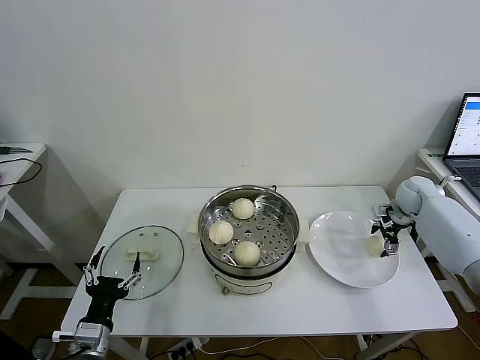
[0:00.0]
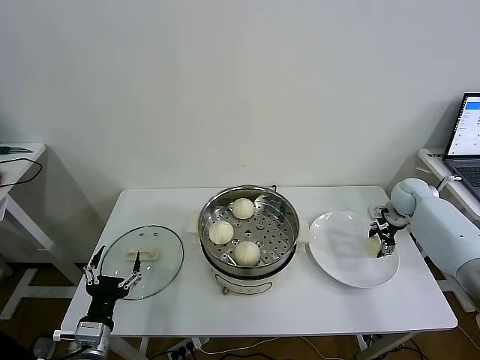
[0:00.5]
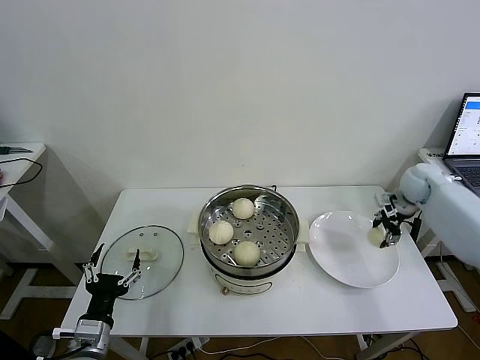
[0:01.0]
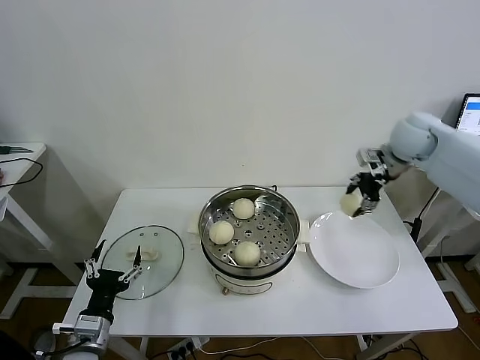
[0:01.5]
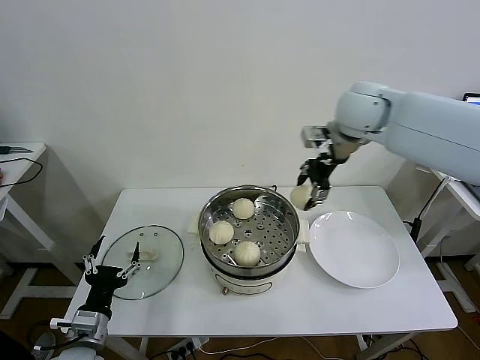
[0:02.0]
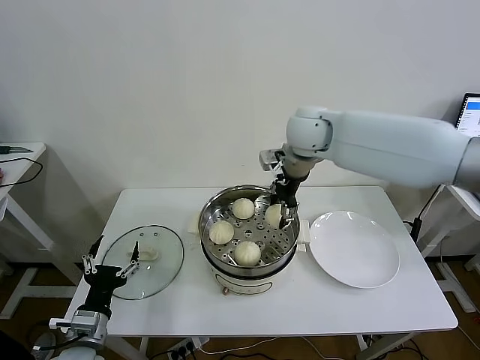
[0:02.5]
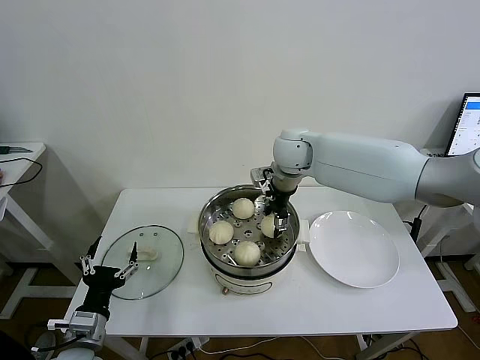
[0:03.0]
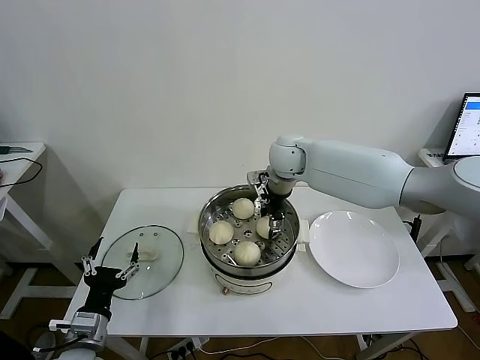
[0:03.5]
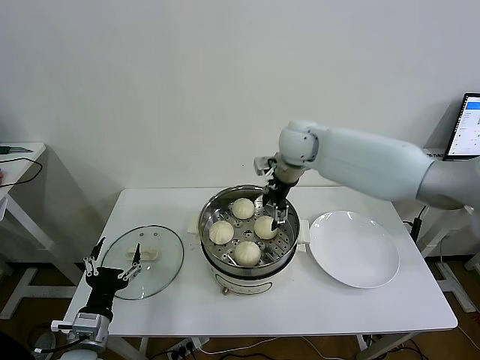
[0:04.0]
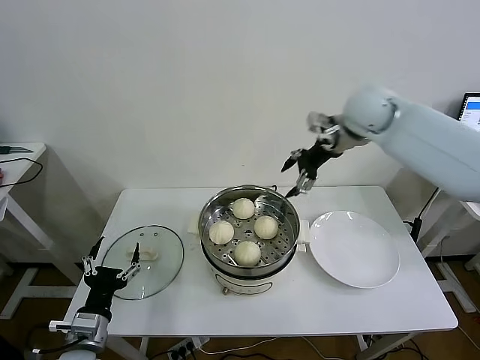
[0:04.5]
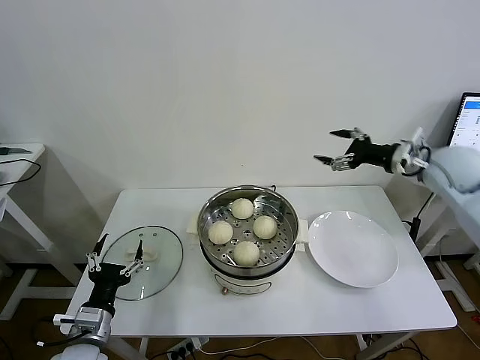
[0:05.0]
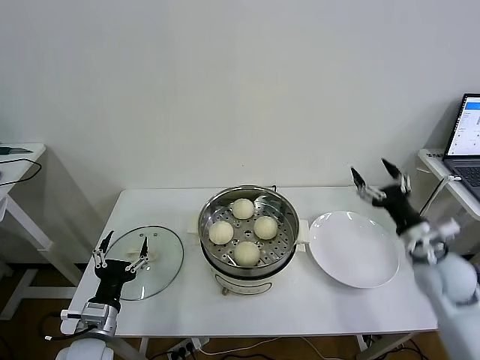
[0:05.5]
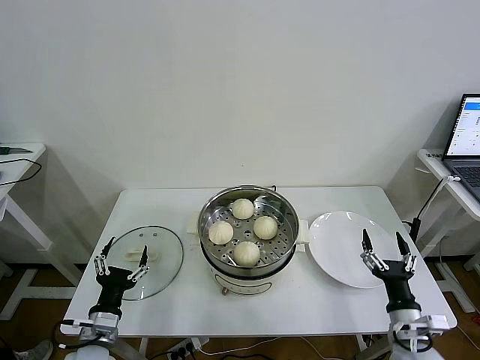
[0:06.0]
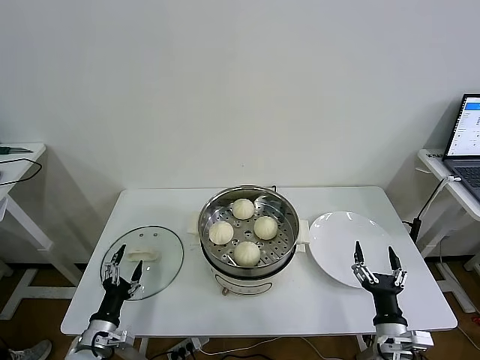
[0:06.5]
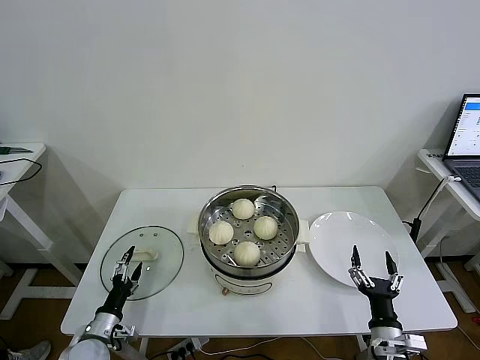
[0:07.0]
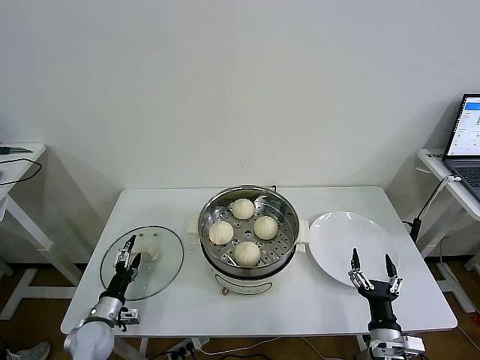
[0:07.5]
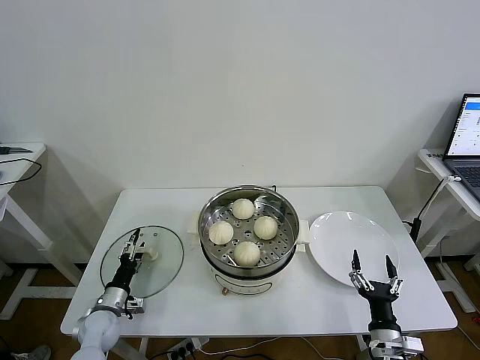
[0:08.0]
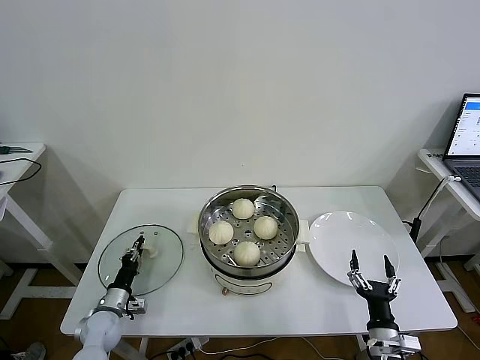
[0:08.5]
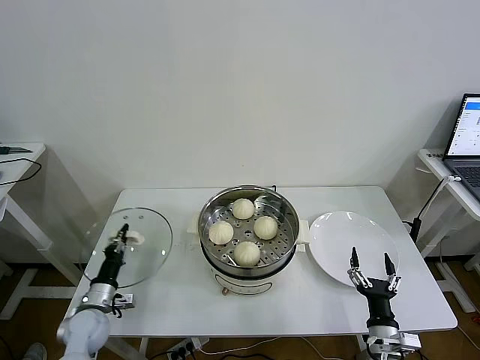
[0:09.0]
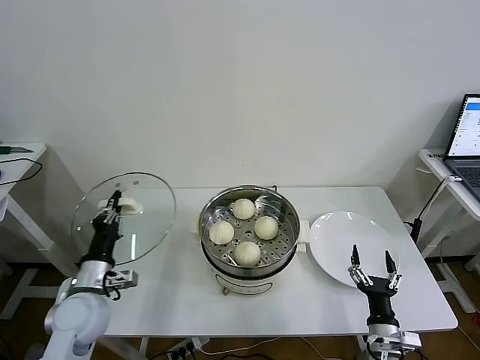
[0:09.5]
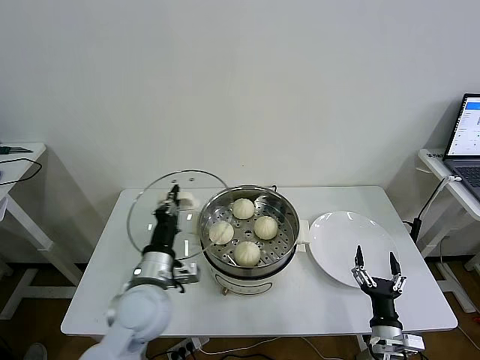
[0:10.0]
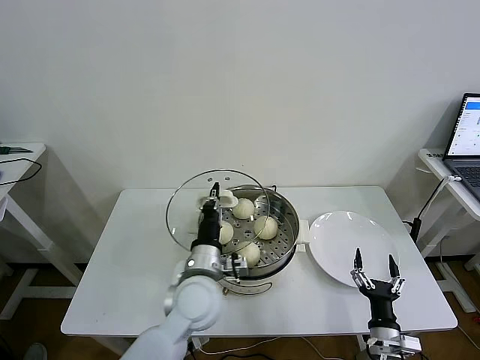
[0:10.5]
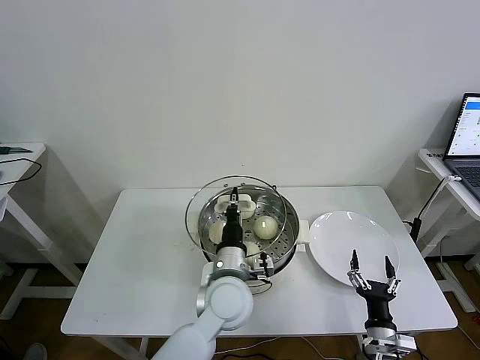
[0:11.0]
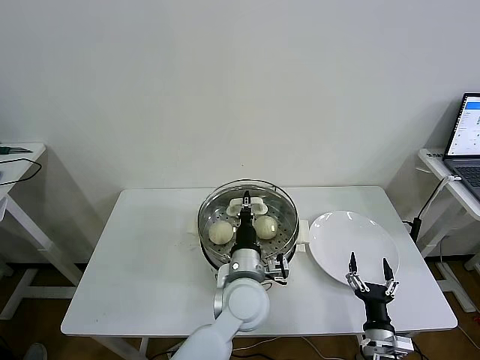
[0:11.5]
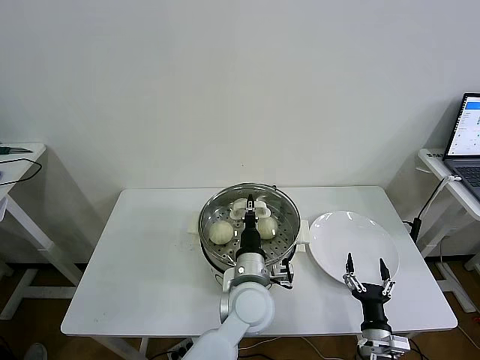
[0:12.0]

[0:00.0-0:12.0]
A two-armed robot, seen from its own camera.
Task of the whole recording: take steamed baozi put them in steamer then cover it.
Step, 0:00.5 to 0:03.5: Place the baozi on the steamer with right gripper.
Step, 0:04.0 to 0:08.5: Grasp the pot lid with left gripper.
0:00.0 to 0:02.0: The right gripper is displaced upward and to the left by some 35 cm, and closes up.
0:02.0 to 0:04.0: The right gripper travels downward and to the left by roughly 15 cm, and opens its fingers.
0:04.0 to 0:06.0: The right gripper travels backward, downward and to the right by some 50 cm.
0:06.0 to 0:08.0: The right gripper heads downward, covering roughly 5 cm. Meanwhile the left gripper goes roughly 15 cm downward, forward and to the left.
0:08.0 to 0:10.0: The left gripper shifts some 25 cm upward and to the right, and closes up.
0:10.0 to 0:12.0: The left gripper shifts some 20 cm to the right.

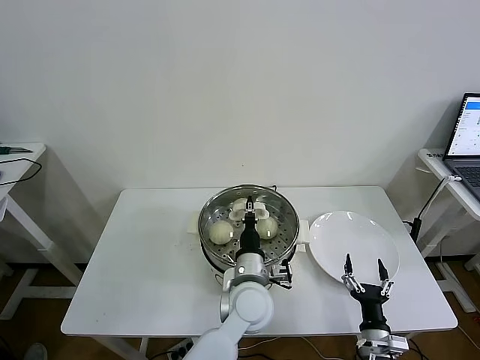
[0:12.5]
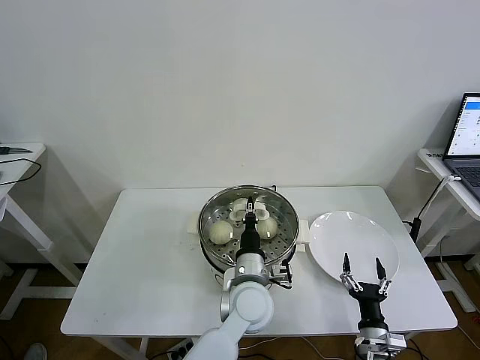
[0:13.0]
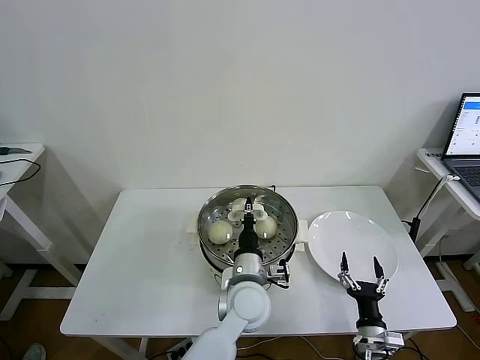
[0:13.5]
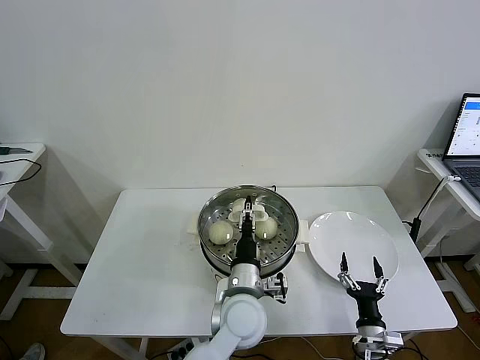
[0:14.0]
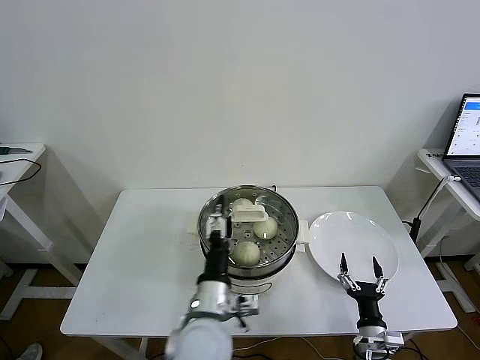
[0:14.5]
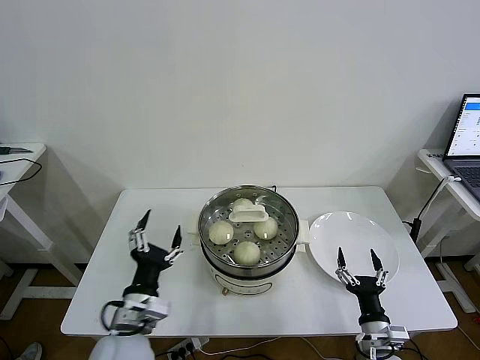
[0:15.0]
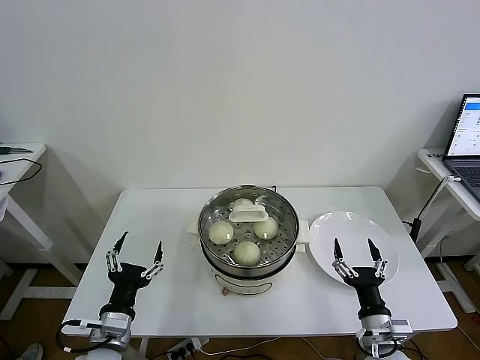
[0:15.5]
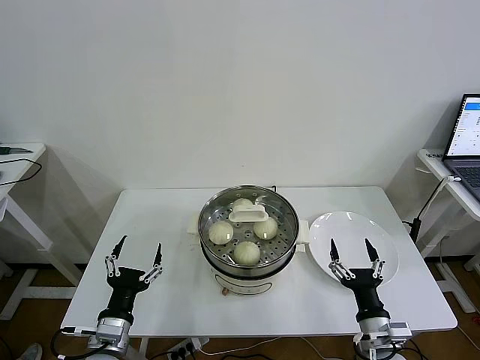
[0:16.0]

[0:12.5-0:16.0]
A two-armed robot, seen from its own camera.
Task of the whole recording: take steamed baozi put them in steamer then cover it.
0:12.5 to 0:14.5: The left gripper travels backward and to the left by approximately 10 cm, and opens its fingers.
0:14.5 to 0:16.0: The right gripper travels upward by about 10 cm; the left gripper travels to the left by roughly 20 cm.
